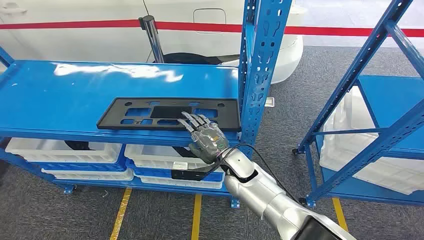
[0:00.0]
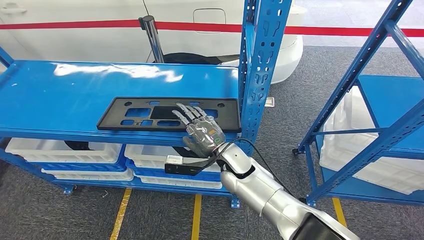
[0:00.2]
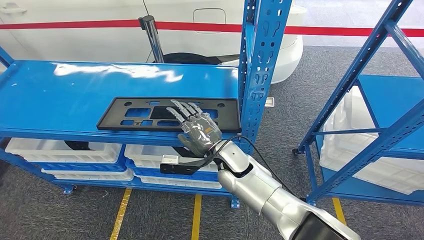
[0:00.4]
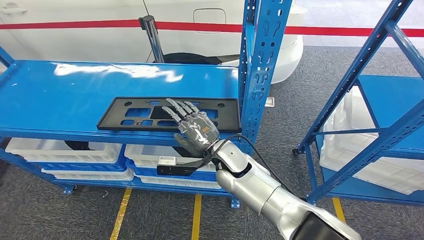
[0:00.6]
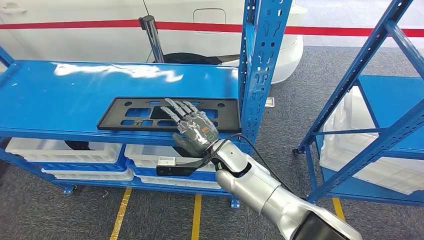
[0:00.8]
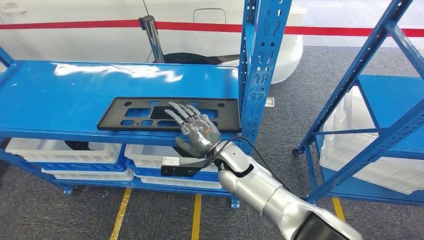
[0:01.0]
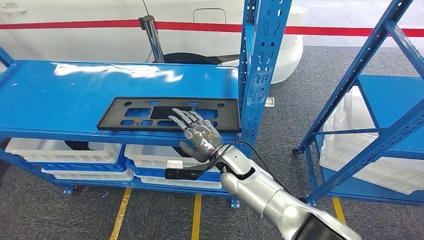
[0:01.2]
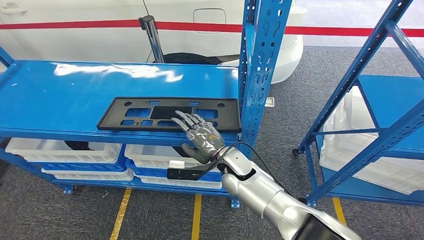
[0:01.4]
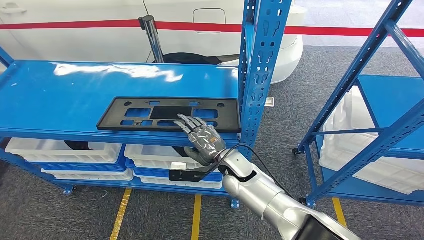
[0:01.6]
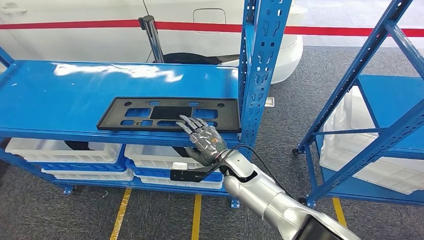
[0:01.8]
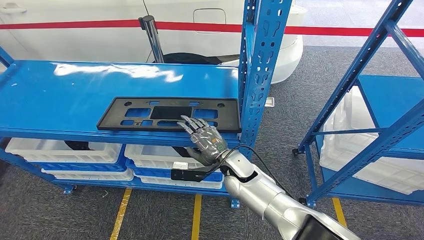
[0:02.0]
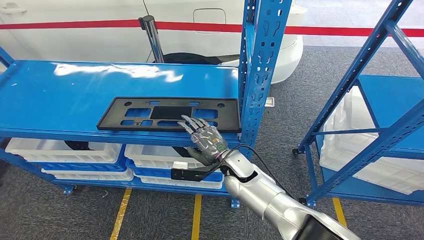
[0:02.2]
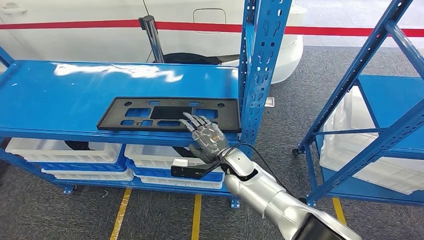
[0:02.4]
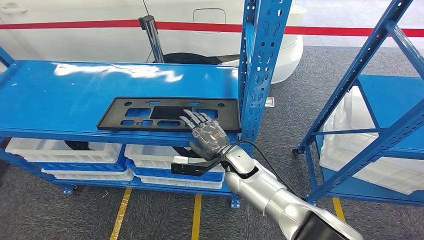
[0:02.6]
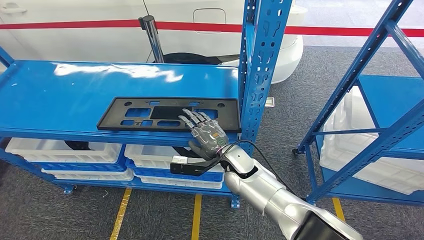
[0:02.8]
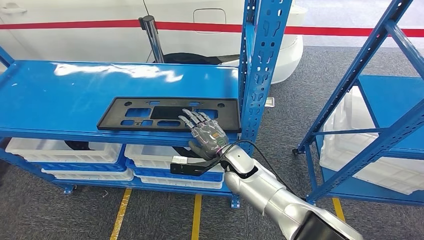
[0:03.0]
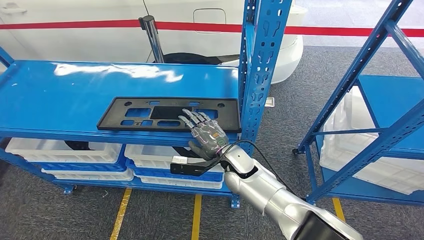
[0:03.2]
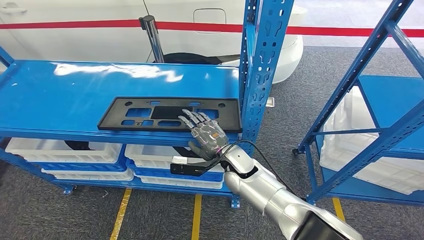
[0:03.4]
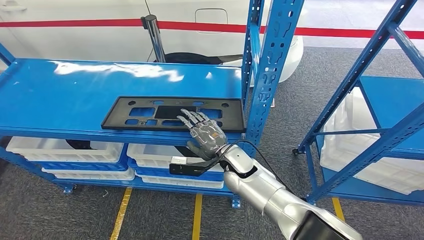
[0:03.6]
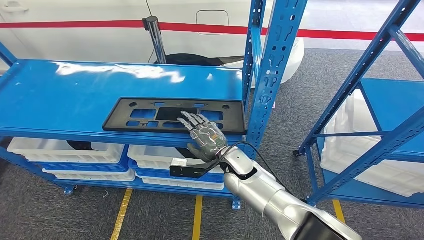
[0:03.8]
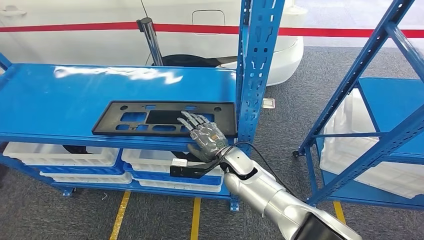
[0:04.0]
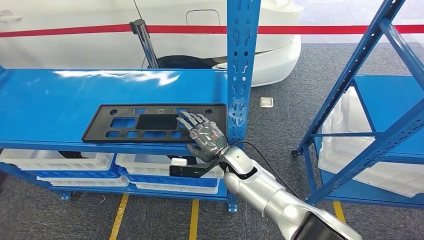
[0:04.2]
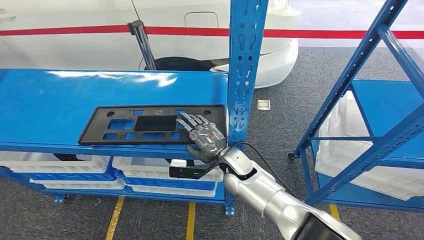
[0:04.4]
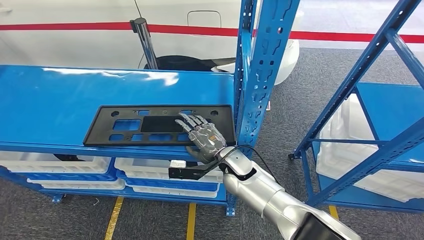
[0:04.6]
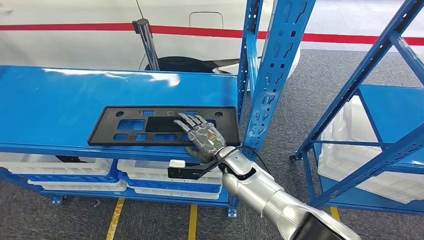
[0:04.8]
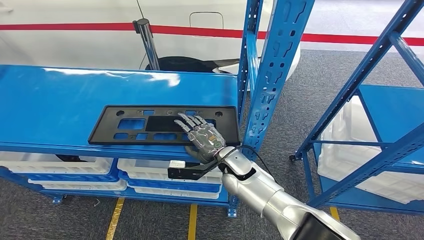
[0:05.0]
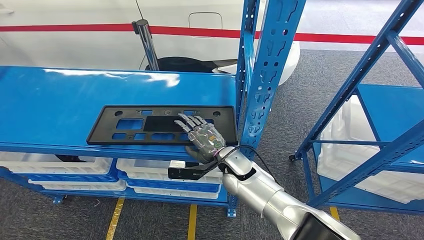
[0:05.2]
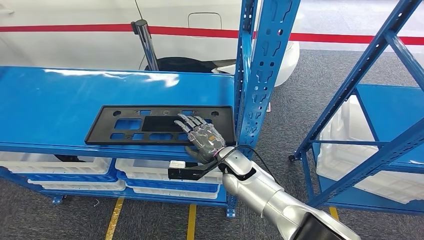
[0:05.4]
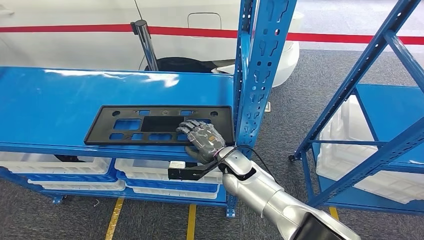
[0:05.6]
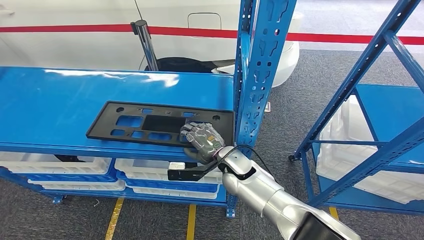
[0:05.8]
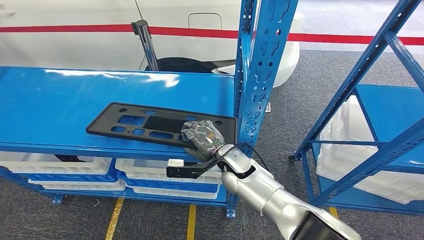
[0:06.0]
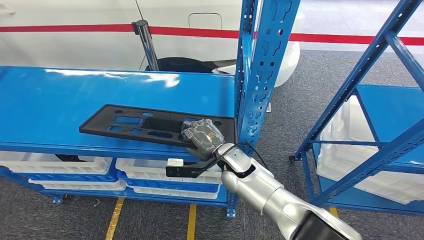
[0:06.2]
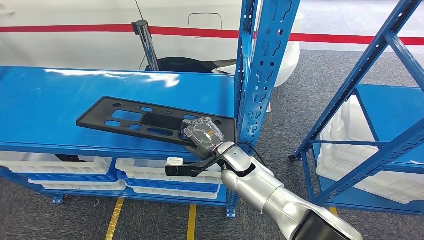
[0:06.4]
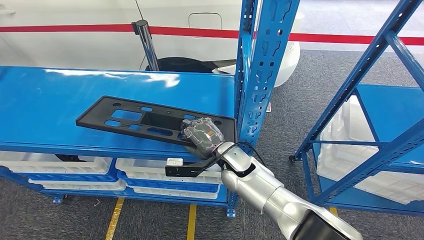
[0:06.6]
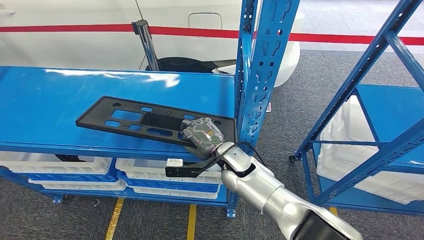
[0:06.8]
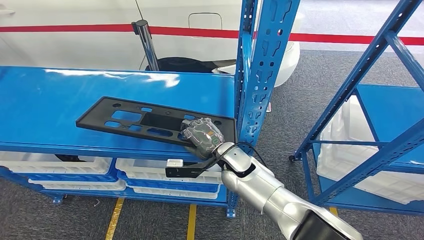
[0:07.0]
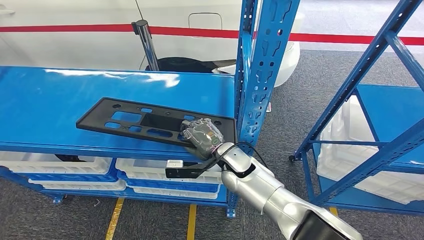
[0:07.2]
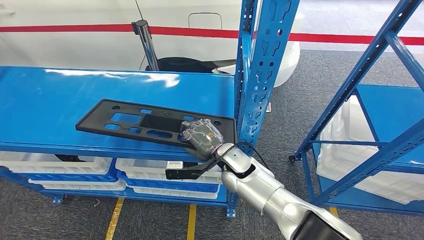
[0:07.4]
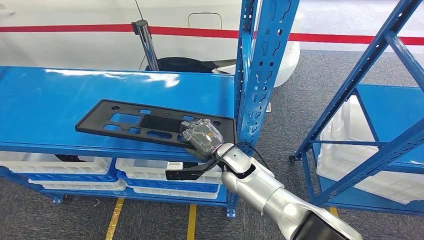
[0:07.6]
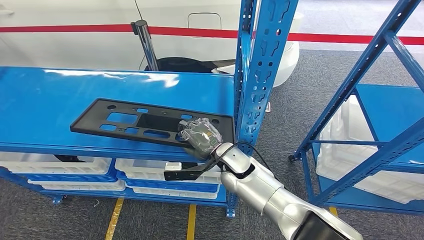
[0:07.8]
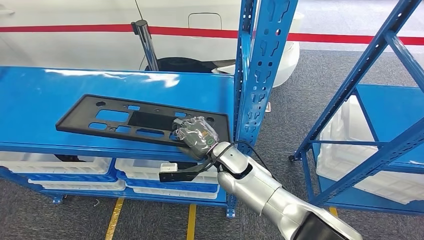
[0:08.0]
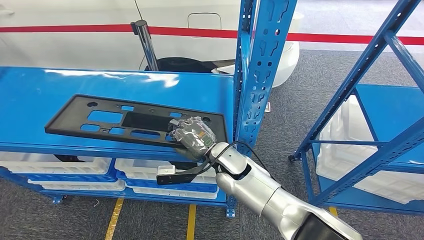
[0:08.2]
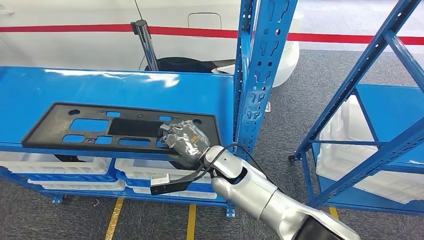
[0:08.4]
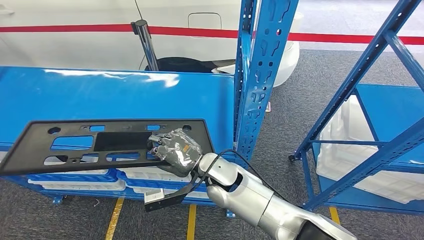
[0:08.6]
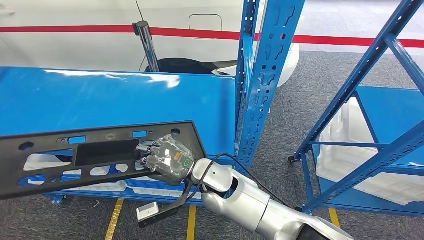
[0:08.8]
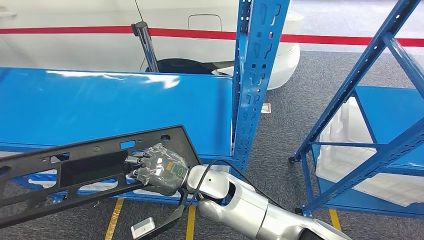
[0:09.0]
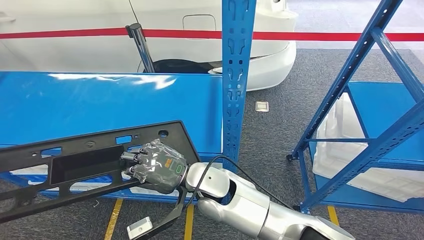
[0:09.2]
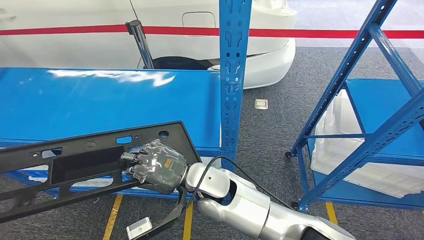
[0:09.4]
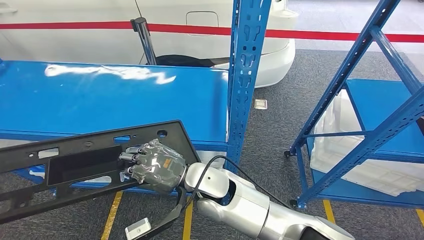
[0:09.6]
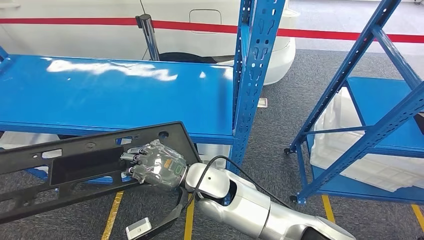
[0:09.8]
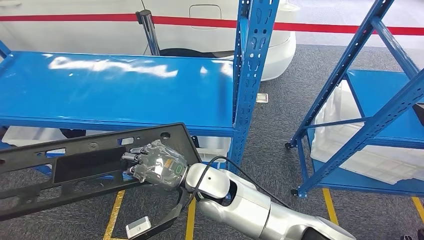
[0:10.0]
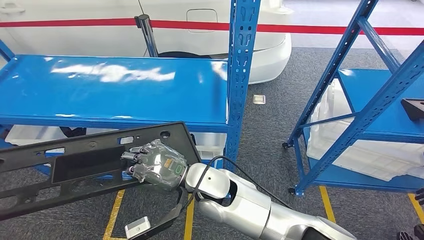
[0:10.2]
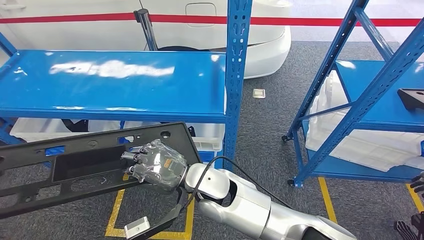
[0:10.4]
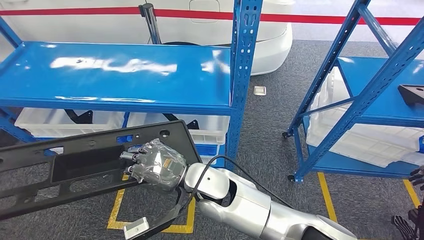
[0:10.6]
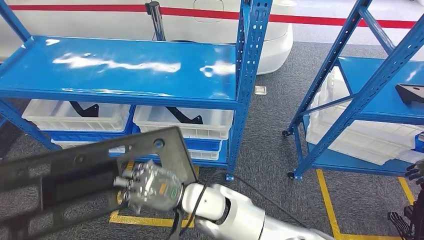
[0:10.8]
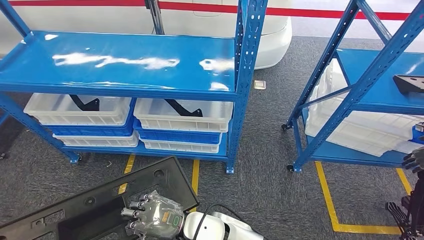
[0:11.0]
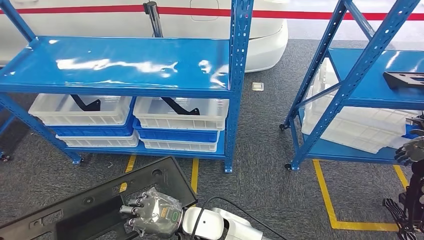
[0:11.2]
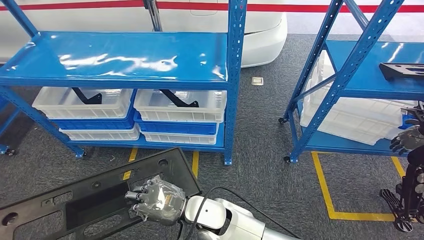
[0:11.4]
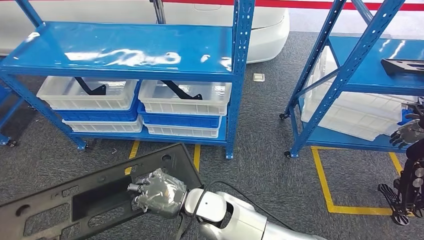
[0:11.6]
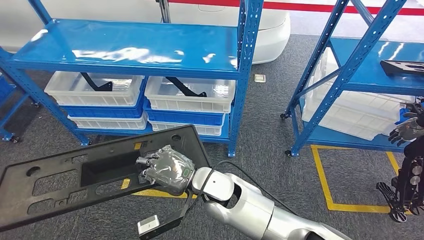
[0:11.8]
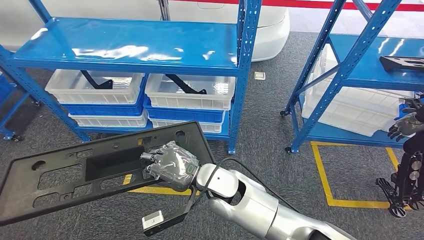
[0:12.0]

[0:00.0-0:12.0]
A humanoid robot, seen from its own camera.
Step, 0.0 to 9.2 s: Pick up the large material from the shelf.
1.6 to 3.0 s: The hands move only a little.
6.0 to 7.6 s: Both hands stay put.

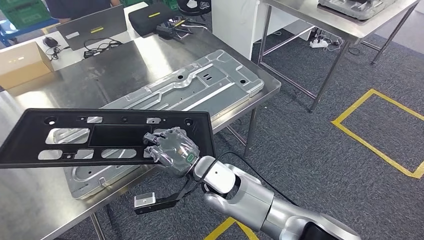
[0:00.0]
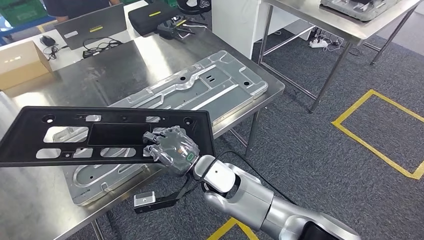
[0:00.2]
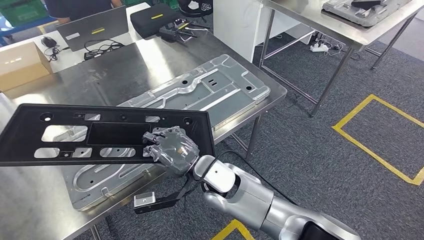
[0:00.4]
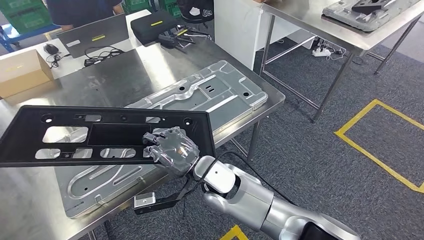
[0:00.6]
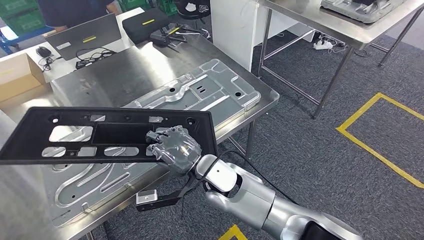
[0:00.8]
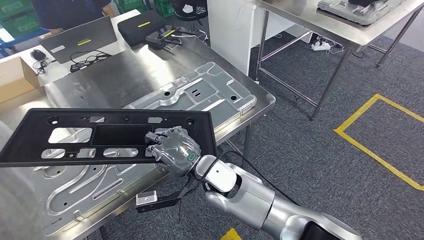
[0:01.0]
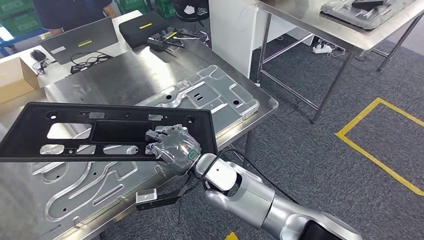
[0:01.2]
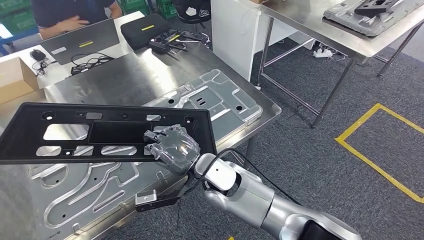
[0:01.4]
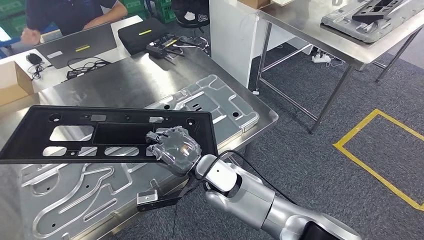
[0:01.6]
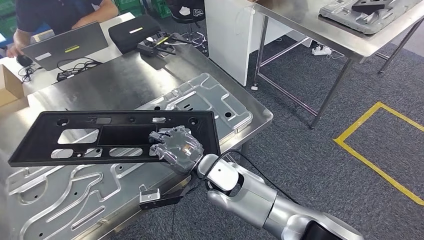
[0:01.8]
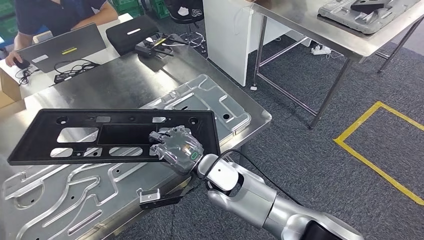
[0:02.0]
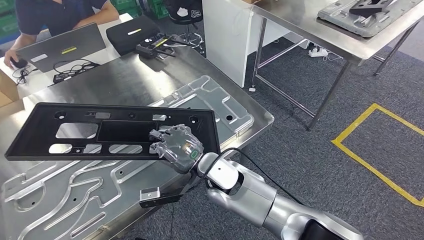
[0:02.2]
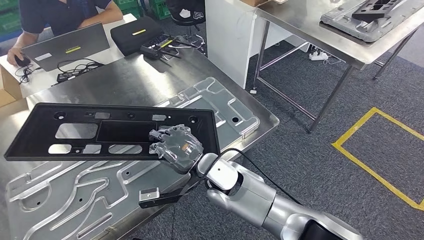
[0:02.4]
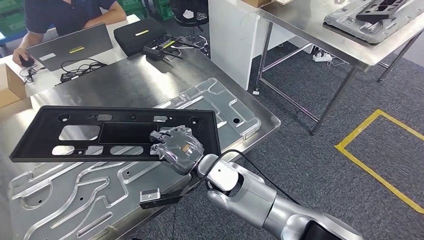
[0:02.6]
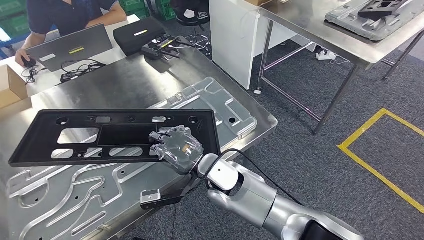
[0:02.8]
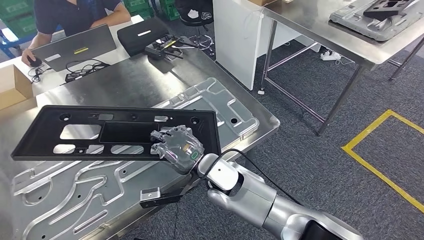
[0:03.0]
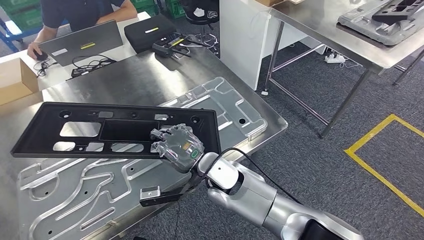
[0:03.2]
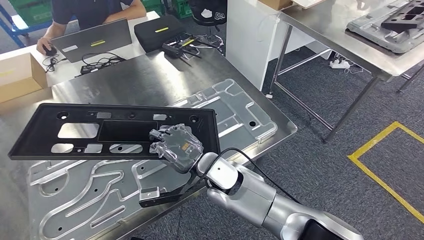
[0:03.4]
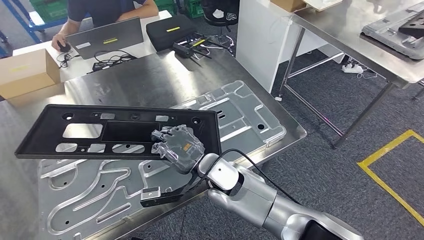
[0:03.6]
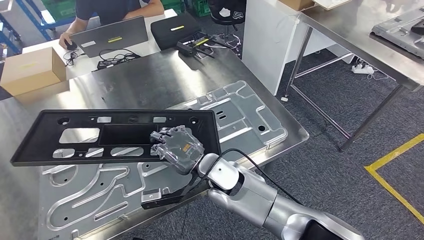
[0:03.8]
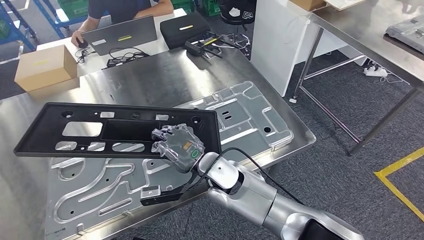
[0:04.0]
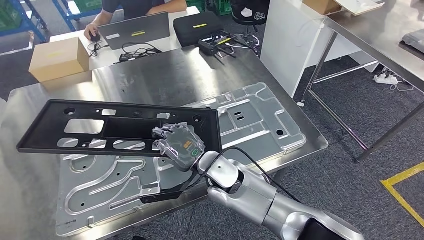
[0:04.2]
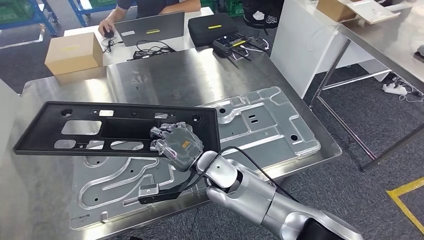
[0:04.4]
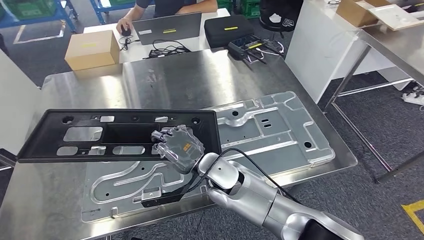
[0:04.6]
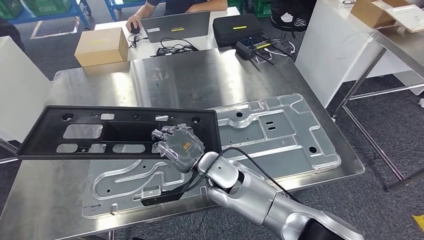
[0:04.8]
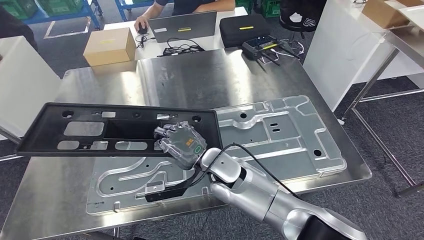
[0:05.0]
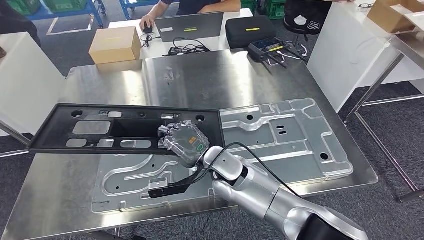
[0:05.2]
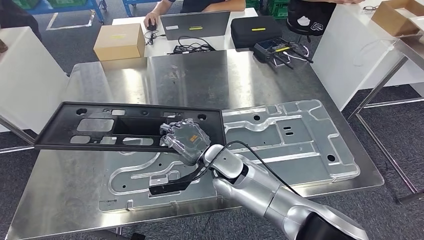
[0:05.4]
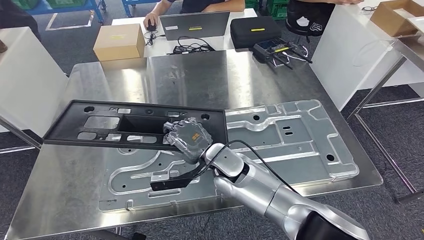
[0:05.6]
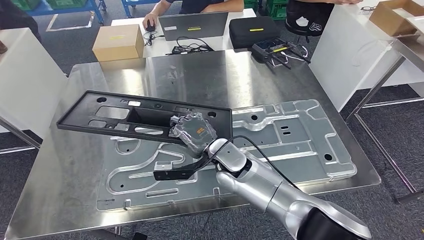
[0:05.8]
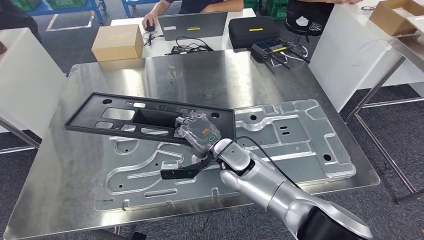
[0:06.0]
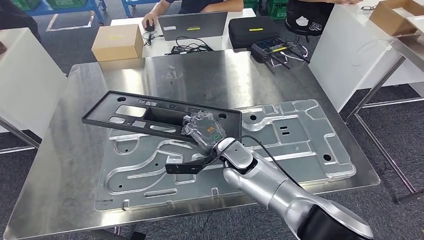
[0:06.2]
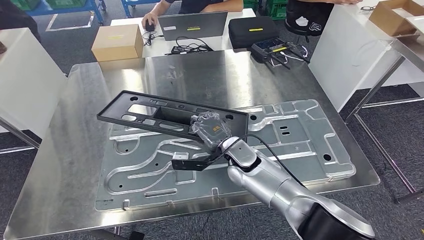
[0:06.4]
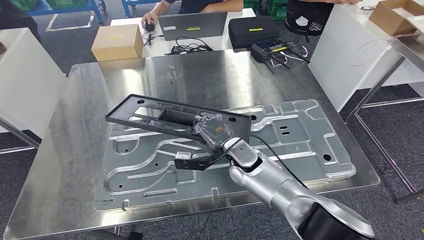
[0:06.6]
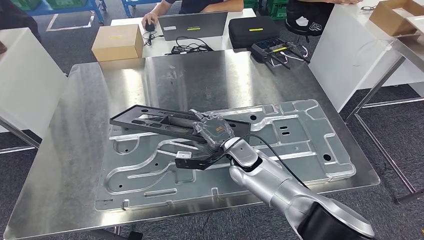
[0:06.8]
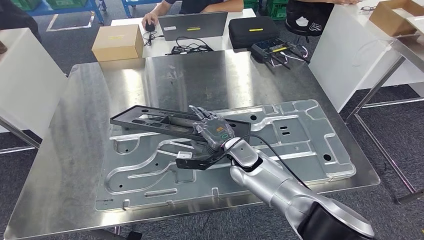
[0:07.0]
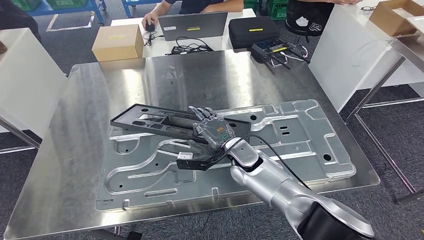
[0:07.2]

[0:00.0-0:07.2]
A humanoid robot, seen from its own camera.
5.8 to 7.2 s: The right hand moves forward, approximately 5 cm.
